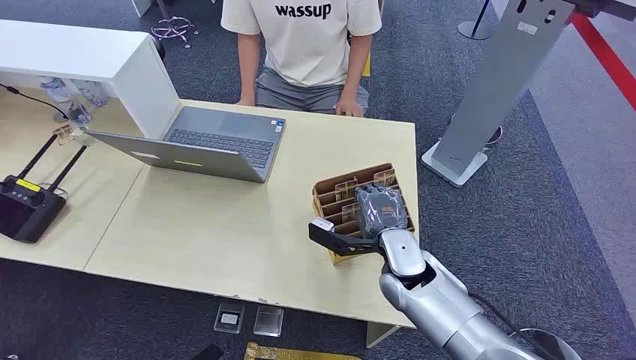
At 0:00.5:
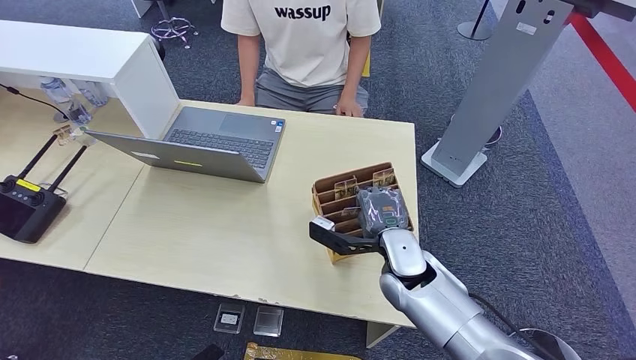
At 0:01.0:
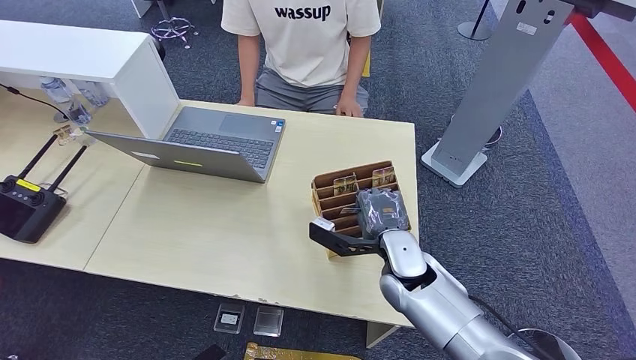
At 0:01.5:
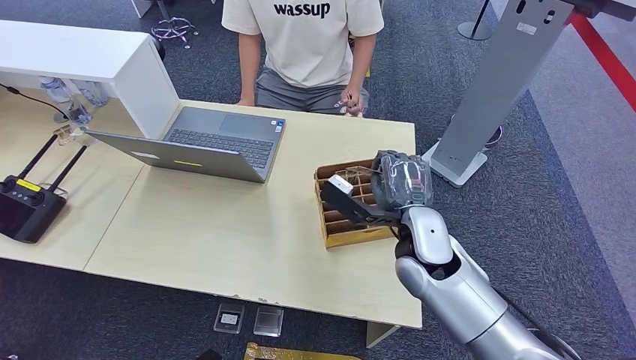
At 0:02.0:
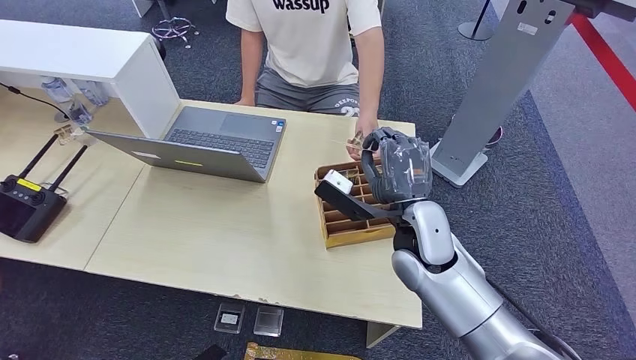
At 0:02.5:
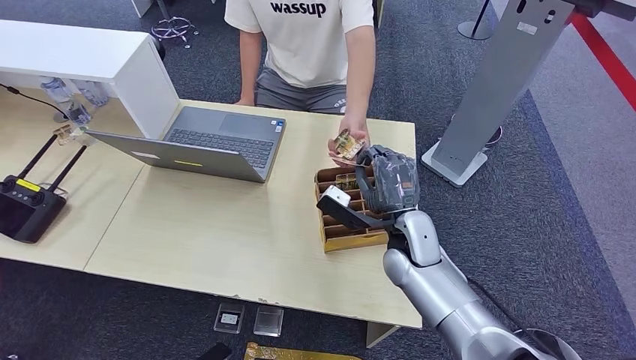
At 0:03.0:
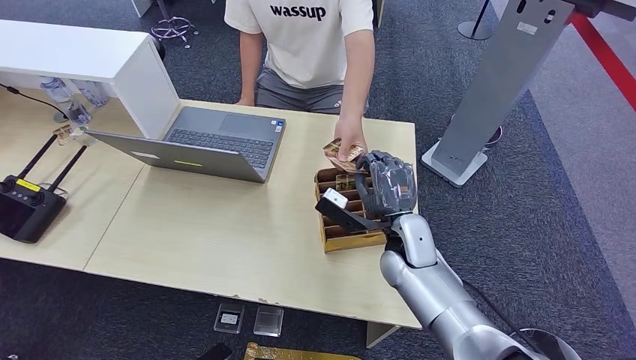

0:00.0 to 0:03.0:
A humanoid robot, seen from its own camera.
Step, 0:00.0 to 0:01.0: Pick up the key card from the card box.
Step, 0:02.0 to 0:03.0: Hand the key card to the target.
0:01.5 to 0:03.0: The right hand shifts some 5 cm downward.

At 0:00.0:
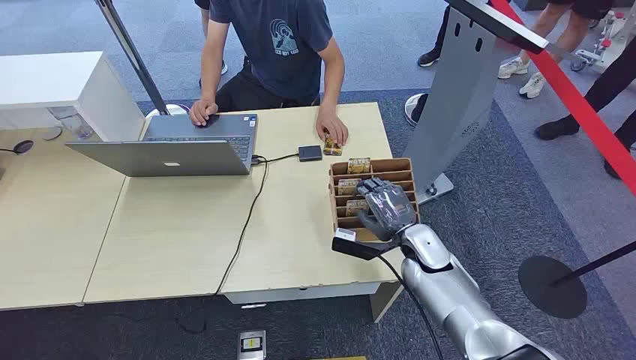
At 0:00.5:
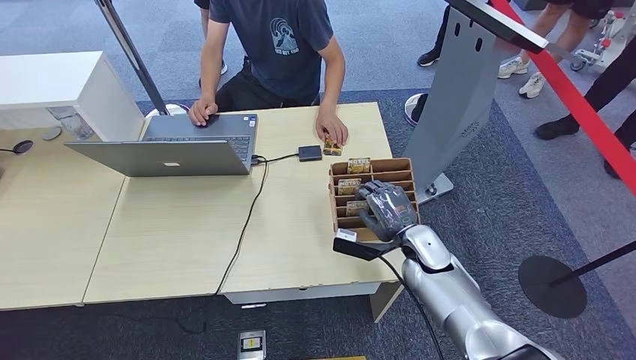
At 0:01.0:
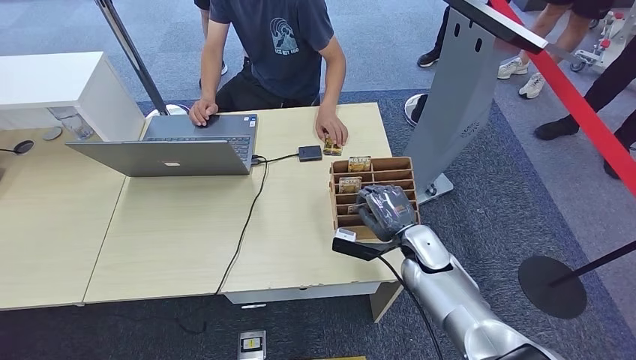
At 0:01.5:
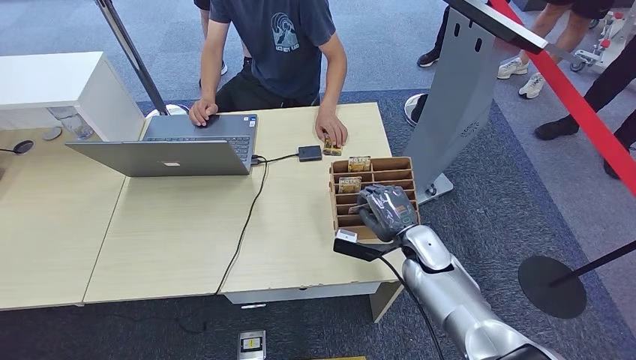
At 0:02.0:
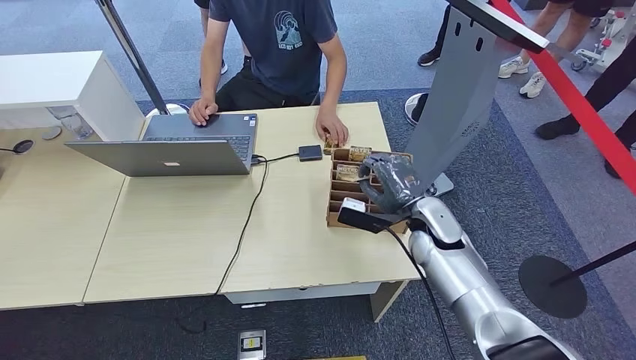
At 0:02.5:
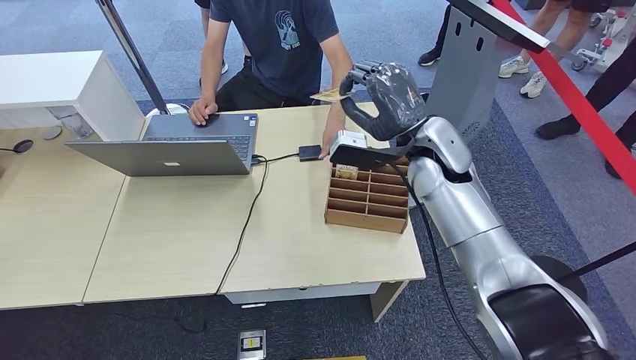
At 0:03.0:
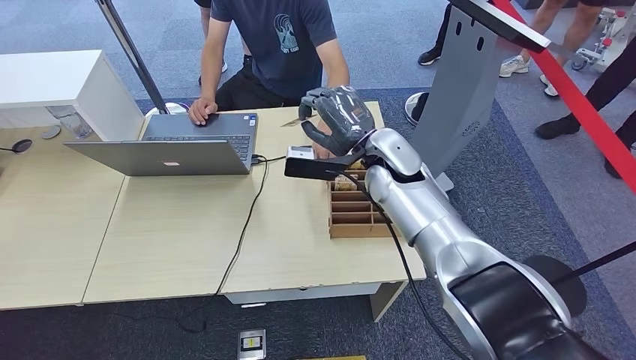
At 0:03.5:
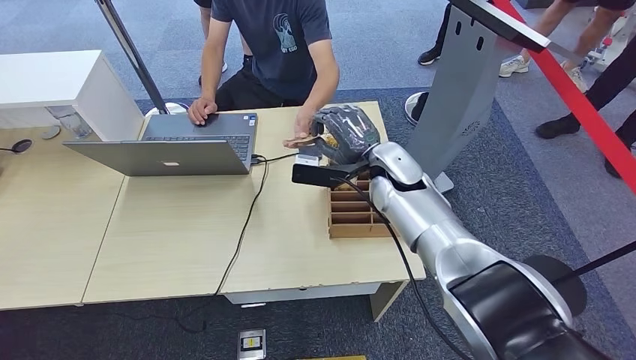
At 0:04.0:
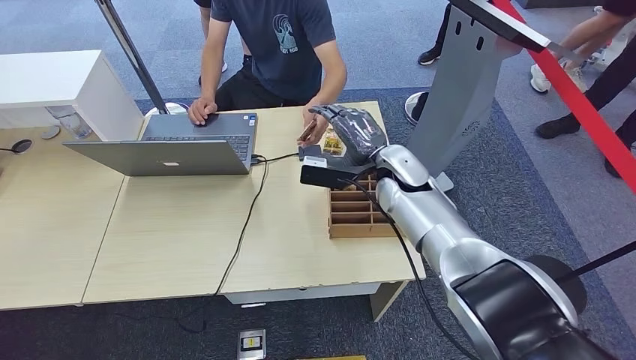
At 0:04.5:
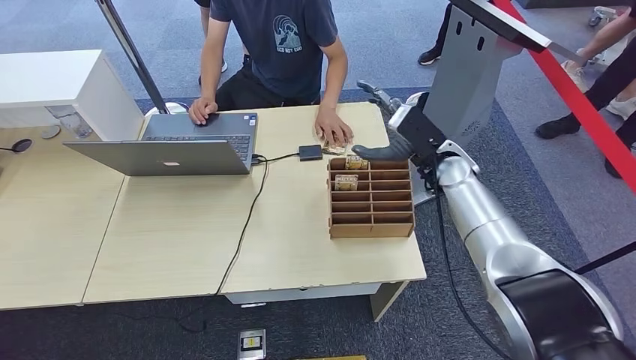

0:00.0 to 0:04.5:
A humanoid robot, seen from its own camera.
Step, 0:00.0 to 0:02.0: Pick up the key card from the card box.
Step, 0:02.5 to 0:04.5: Hand the key card to the target.
0:02.0 to 0:04.5: The right hand shifts some 10 cm upward and forward.
